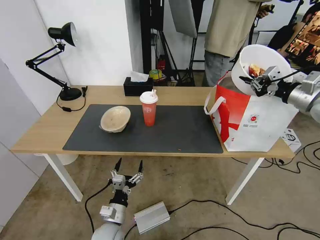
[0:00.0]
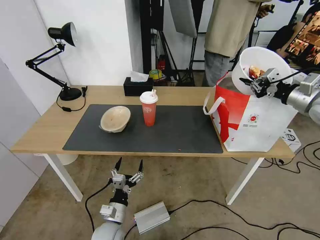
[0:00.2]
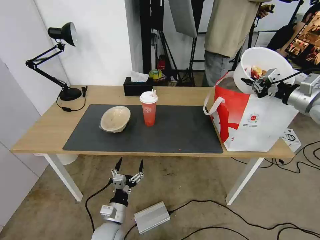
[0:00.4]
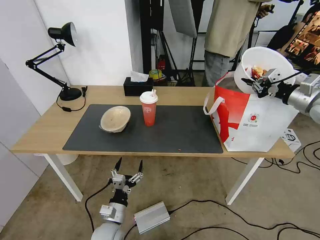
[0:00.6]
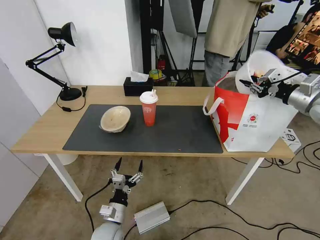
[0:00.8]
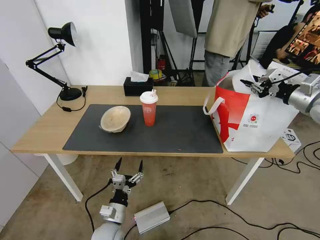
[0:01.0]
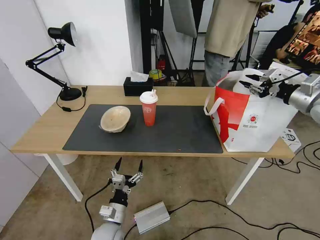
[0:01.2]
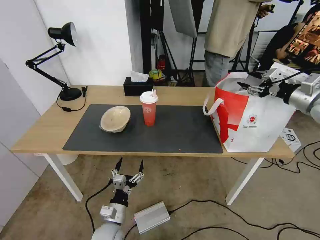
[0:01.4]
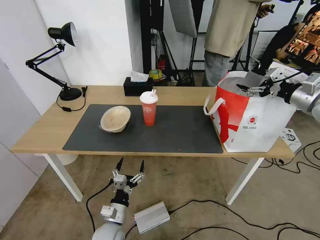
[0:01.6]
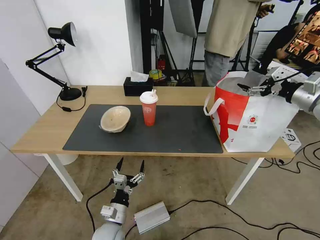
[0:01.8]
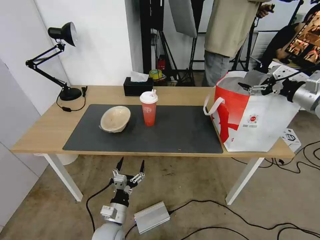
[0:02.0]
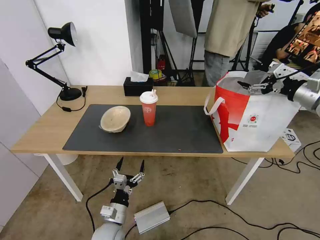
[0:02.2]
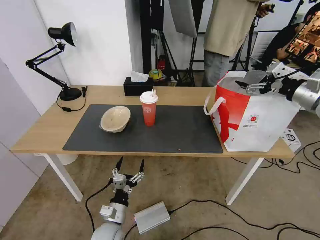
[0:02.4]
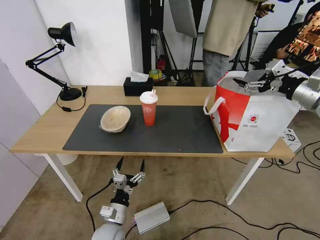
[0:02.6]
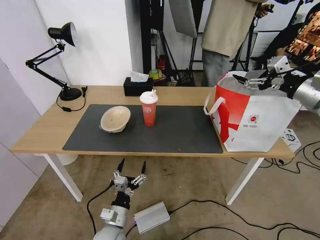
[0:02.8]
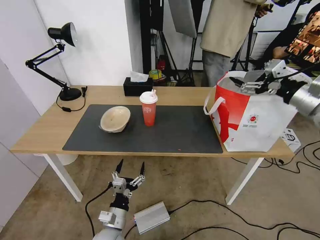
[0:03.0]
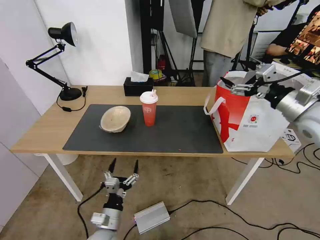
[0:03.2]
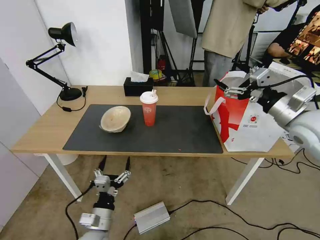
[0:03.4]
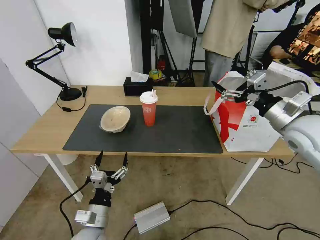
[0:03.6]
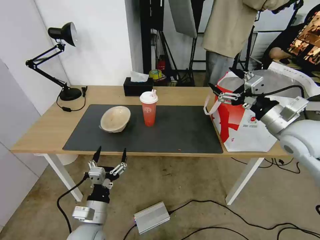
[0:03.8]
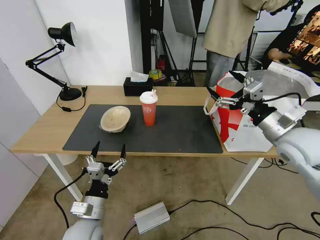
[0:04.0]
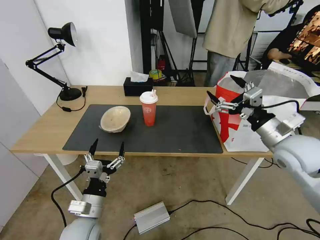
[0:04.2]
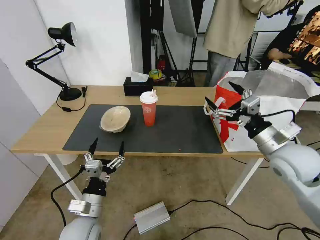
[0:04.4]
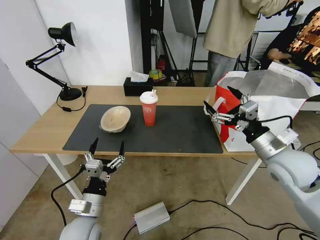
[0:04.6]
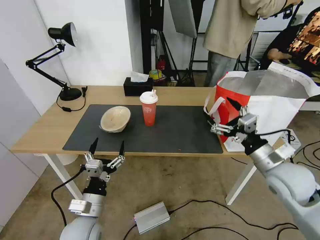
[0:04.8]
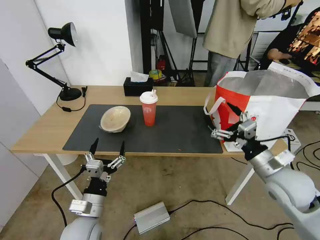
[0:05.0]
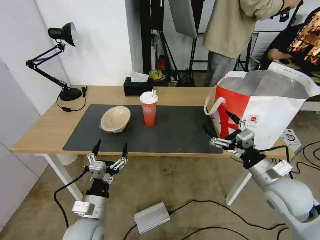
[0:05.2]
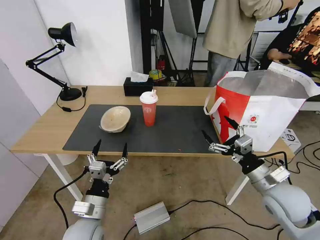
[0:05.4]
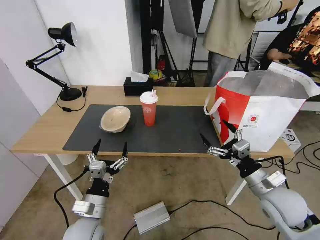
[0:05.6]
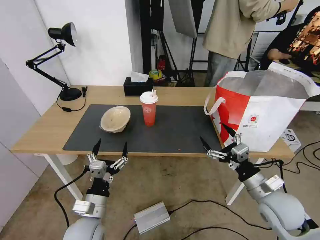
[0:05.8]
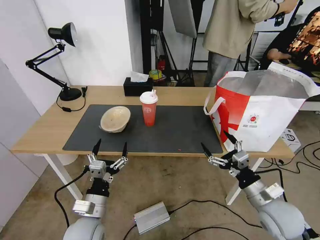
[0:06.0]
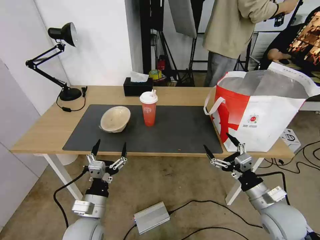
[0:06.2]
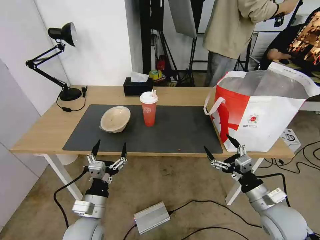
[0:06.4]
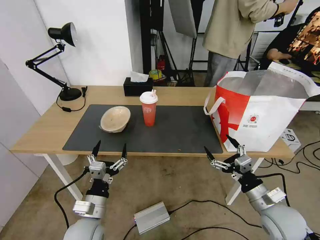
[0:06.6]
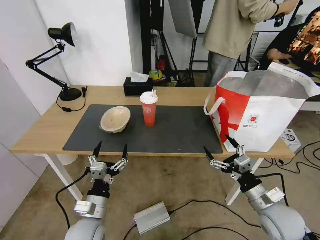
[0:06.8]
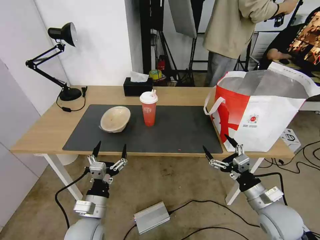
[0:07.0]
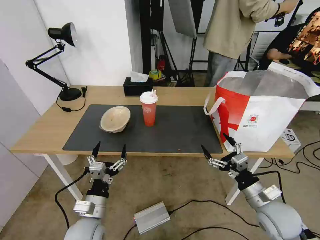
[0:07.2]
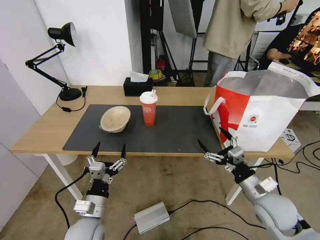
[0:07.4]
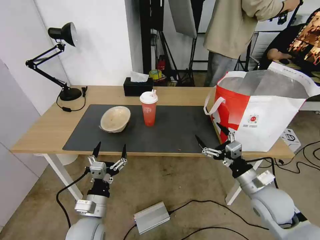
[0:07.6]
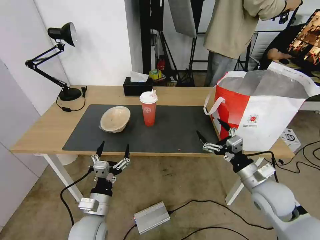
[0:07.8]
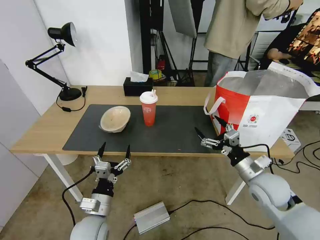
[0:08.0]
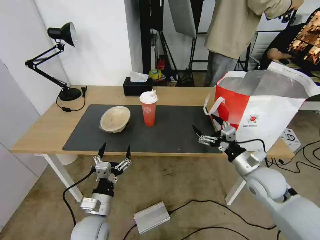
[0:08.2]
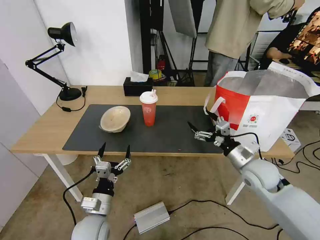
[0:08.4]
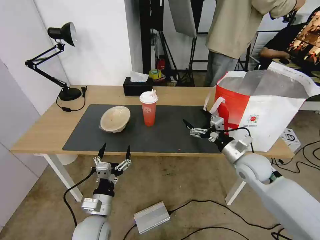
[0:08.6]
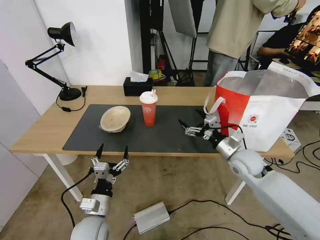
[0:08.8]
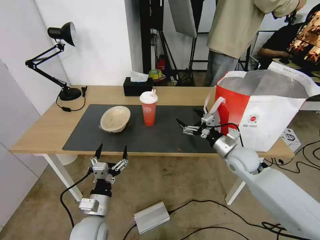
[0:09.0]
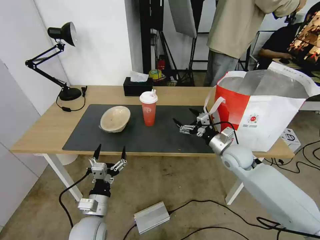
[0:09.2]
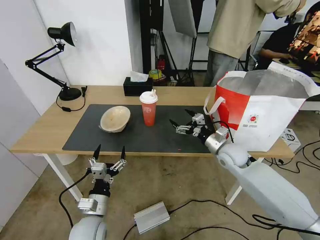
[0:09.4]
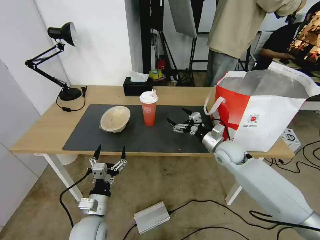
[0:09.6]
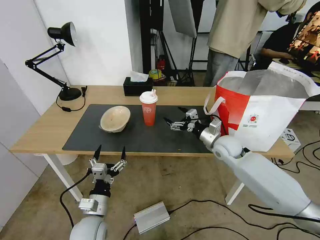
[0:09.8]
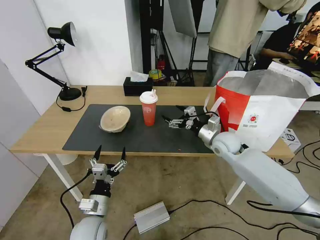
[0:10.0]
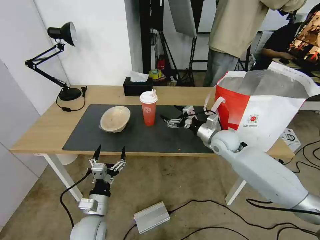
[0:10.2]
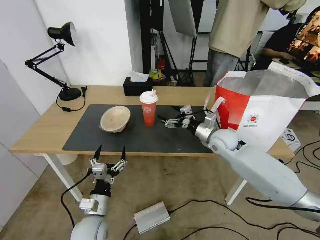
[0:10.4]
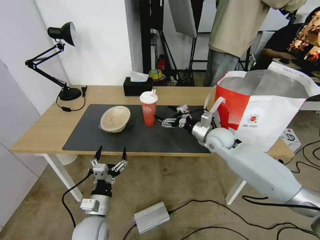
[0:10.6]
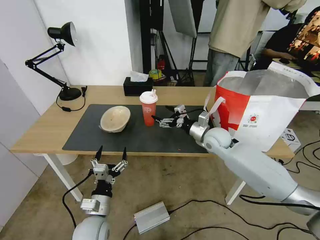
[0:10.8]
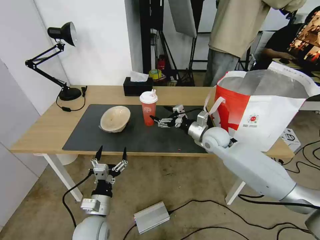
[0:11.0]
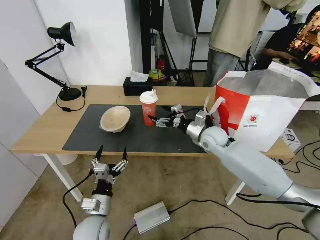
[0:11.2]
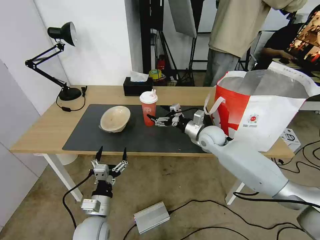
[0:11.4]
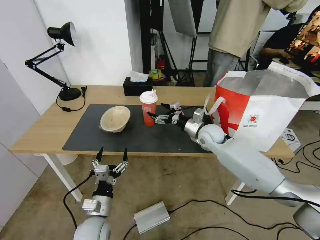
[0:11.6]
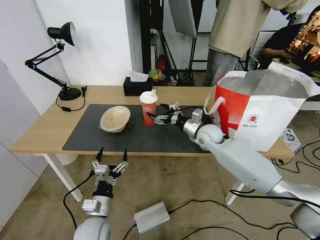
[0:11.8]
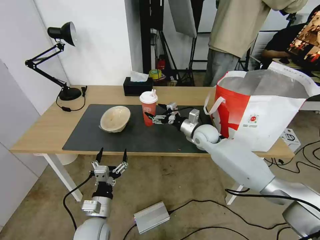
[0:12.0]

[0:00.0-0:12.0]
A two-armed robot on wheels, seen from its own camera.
Task of the whole recording: Pick up the trash from the table and place it into the takeout bag.
0:00.0 to 0:01.6: The right gripper opens its fingers.
0:01.6 to 0:03.0: The right gripper travels to the left and backward by approximately 10 cm.
0:03.0 to 0:04.4: The right gripper is displaced downward, to the left and backward by some 15 cm. Meanwhile the left gripper travels upward by some 10 cm.
0:04.4 to 0:06.0: The right gripper travels downward and backward by about 15 cm.
0:06.0 to 0:07.6: There are only small adjustments of the grippers.
0:07.6 to 0:09.0: The right gripper heads forward, covering roughly 15 cm.
0:09.0 to 0:10.4: The right gripper moves forward, about 5 cm.
0:10.4 to 0:12.0: The right gripper moves about 5 cm.

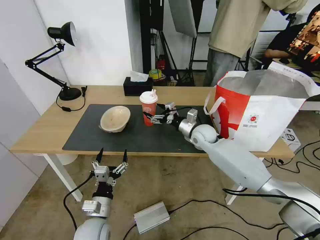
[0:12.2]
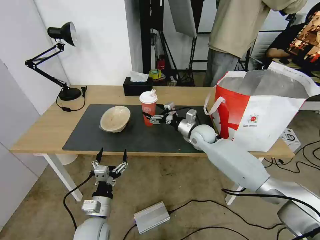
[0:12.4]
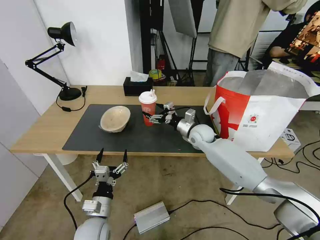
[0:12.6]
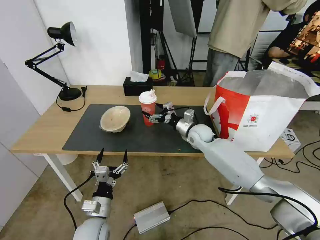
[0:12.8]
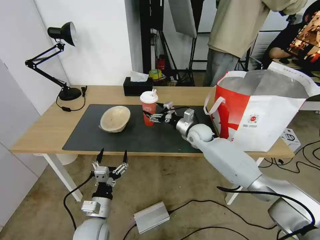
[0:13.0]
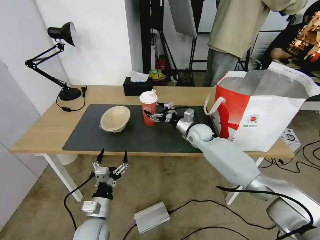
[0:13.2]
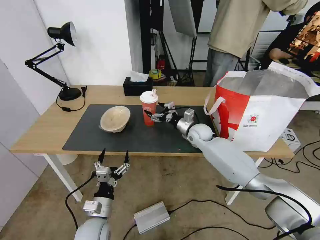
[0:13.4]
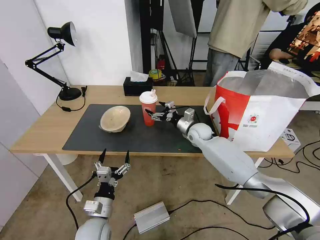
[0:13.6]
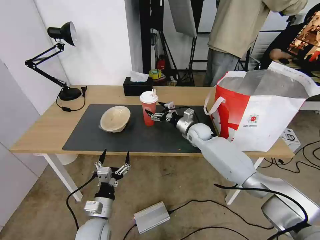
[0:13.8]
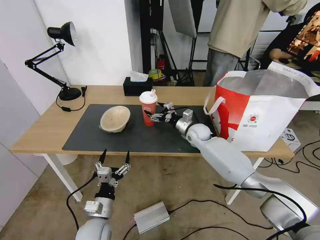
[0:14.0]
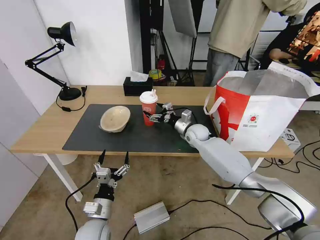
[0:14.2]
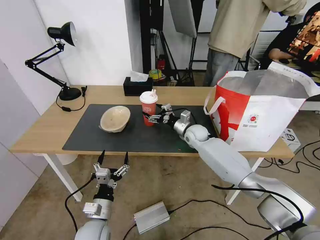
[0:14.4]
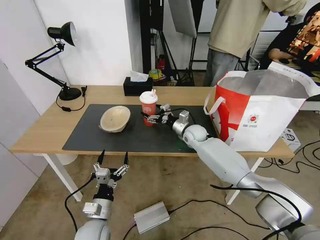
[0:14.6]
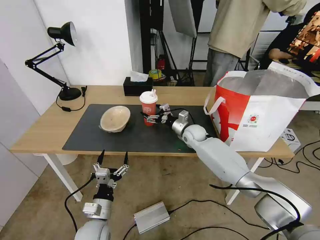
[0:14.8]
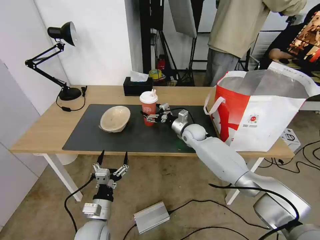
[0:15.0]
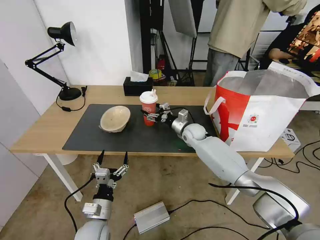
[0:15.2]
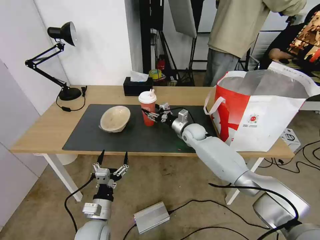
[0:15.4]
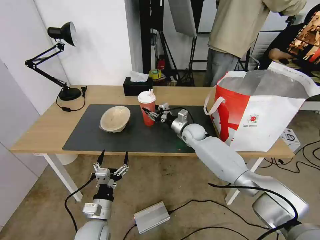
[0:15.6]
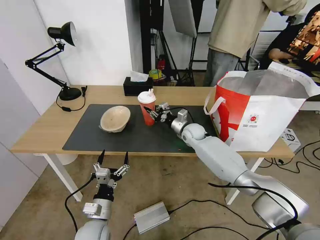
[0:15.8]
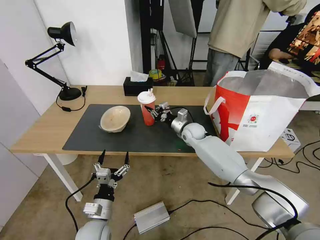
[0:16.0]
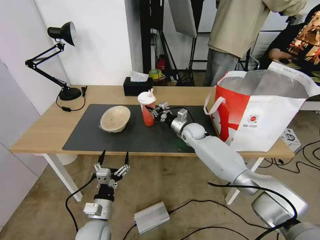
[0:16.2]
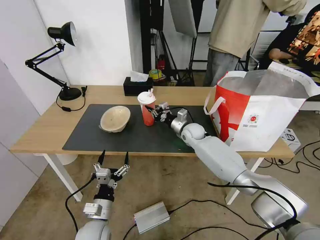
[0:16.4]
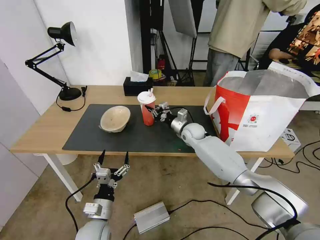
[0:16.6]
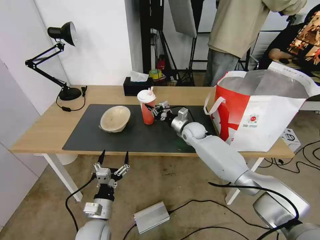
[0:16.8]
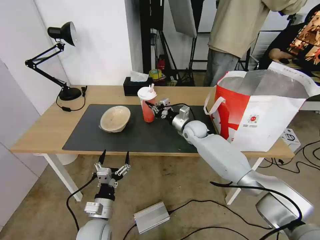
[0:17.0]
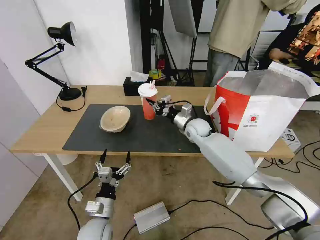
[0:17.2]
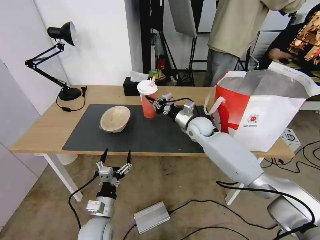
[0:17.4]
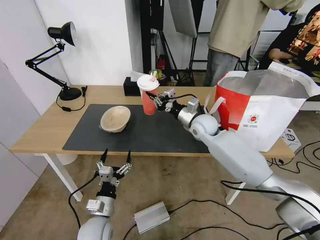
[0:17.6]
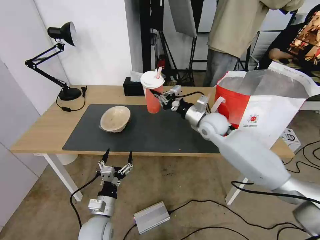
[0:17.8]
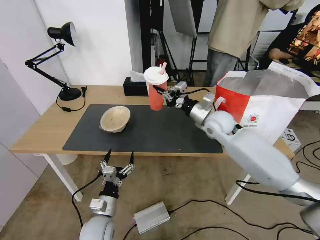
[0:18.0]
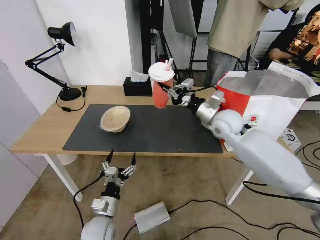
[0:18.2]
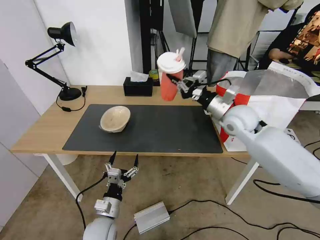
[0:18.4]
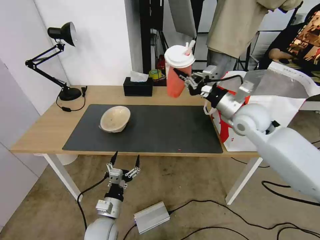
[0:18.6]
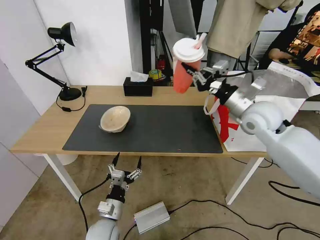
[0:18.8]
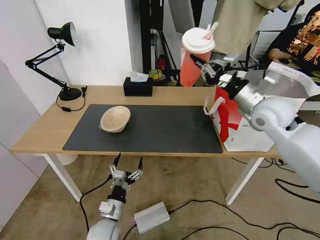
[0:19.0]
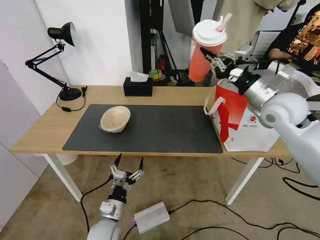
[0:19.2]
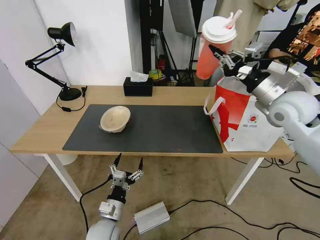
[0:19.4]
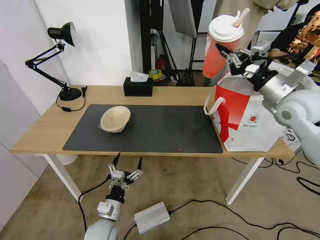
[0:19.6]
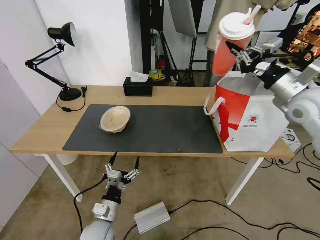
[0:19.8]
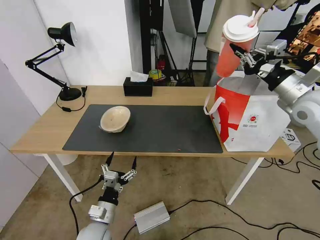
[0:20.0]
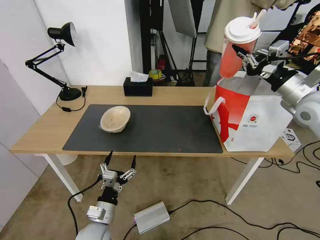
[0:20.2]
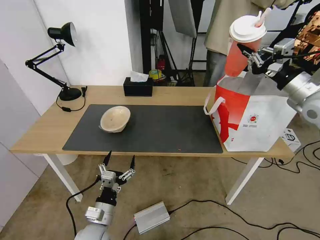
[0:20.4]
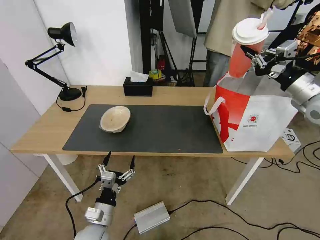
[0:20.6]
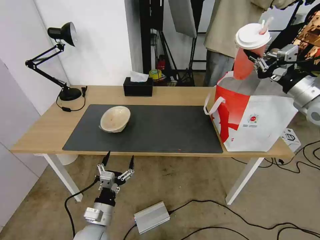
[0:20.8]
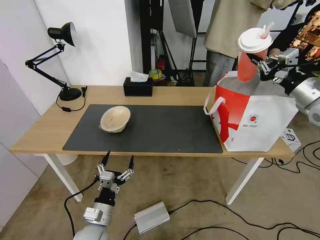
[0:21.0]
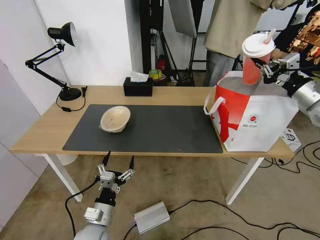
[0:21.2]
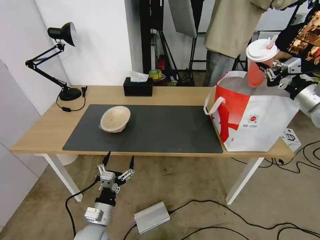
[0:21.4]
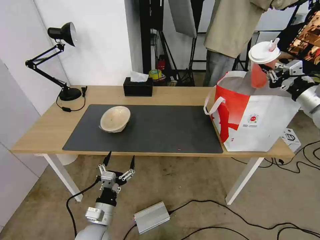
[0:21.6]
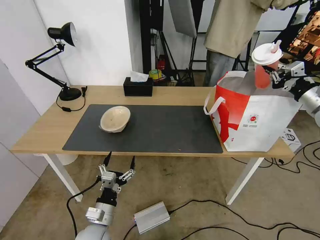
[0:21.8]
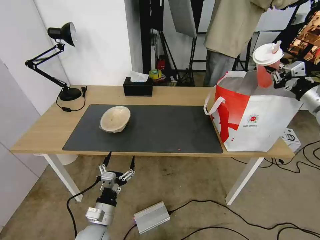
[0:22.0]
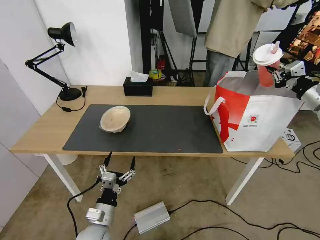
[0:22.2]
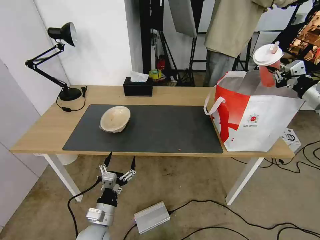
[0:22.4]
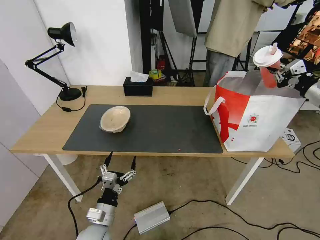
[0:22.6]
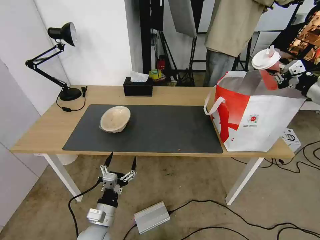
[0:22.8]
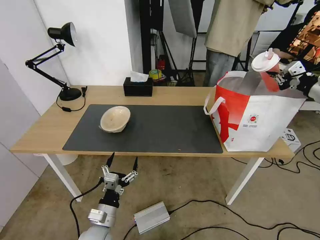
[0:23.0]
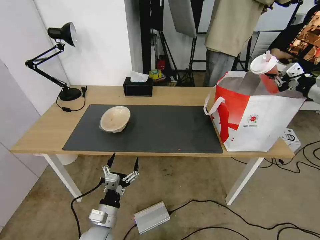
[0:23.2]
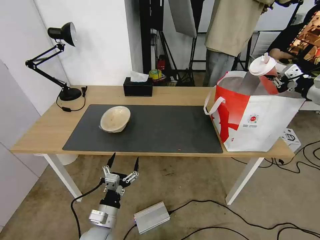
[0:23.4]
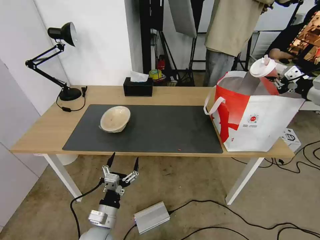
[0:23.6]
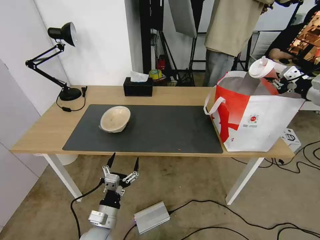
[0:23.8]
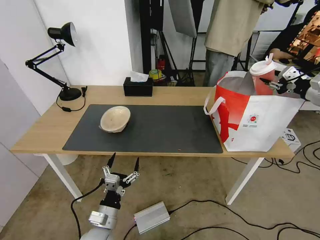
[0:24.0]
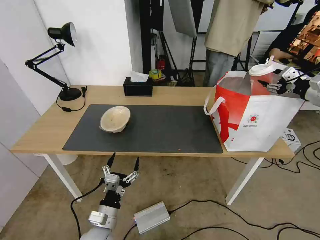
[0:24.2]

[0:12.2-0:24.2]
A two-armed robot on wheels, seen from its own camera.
Task of the whole recording: Pick up the trash from the table and place it into the takeout bag.
0:12.2 to 0:13.8: There are only small adjustments of the grippers.
0:13.8 to 0:15.2: There are only small adjustments of the grippers.
0:15.2 to 0:16.6: The right gripper closes its fingers.
0:16.6 to 0:18.2: The right gripper is displaced upward, backward and to the right by some 20 cm.
0:18.2 to 0:19.8: The right gripper travels to the right and upward by approximately 20 cm.
0:19.8 to 0:21.2: The right gripper heads to the right, covering about 10 cm.
0:21.2 to 0:22.6: The right gripper shifts some 5 cm to the right.
0:22.6 to 0:24.2: The right gripper opens up.
